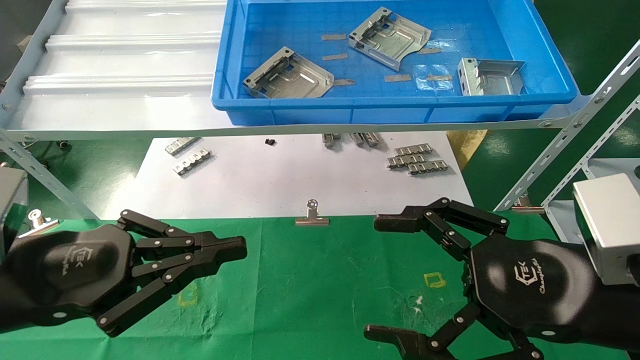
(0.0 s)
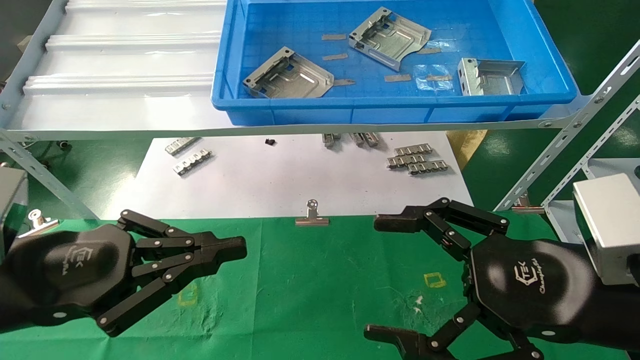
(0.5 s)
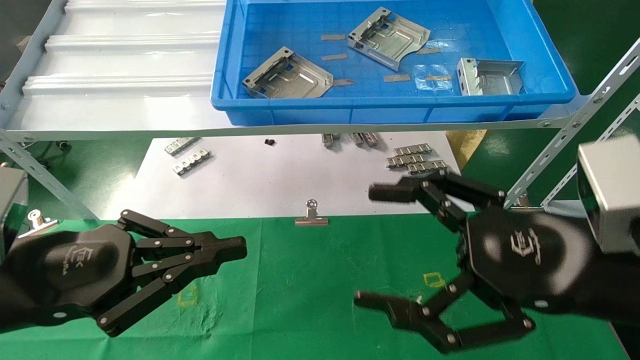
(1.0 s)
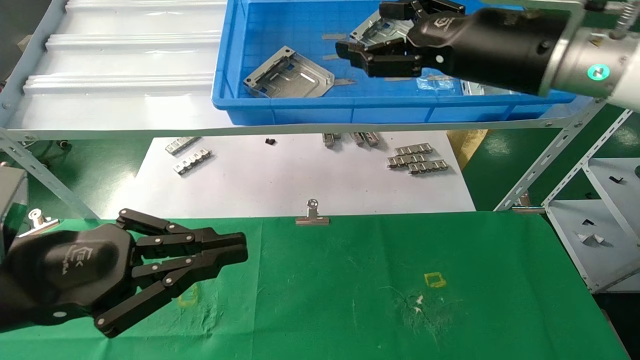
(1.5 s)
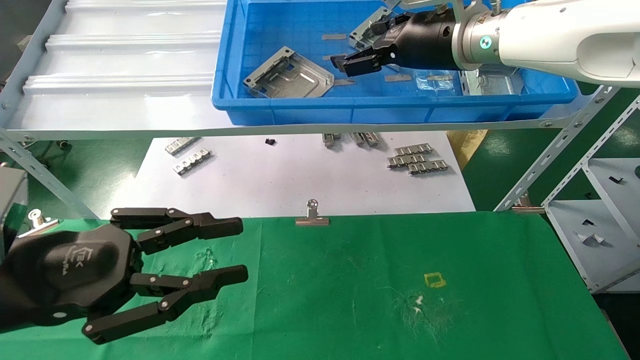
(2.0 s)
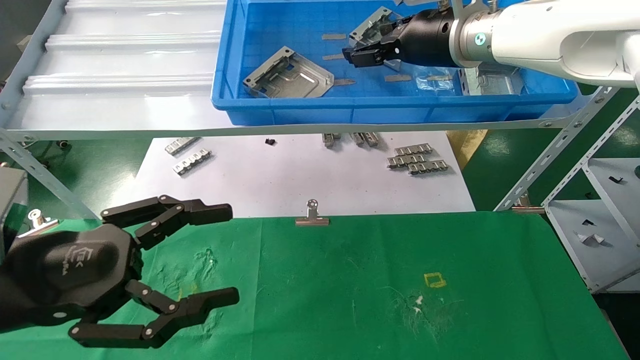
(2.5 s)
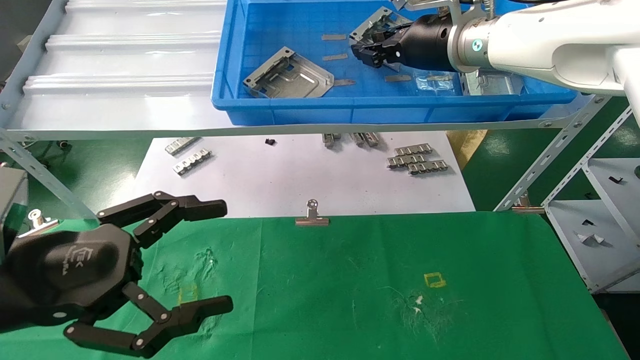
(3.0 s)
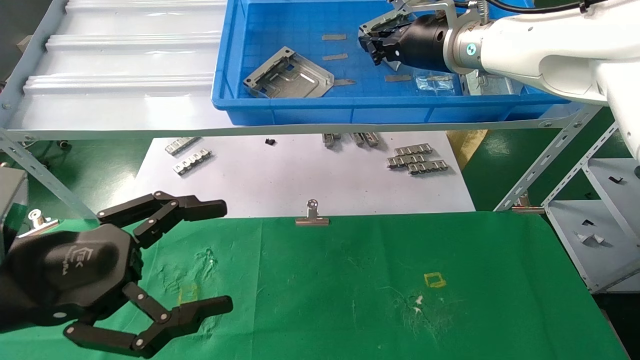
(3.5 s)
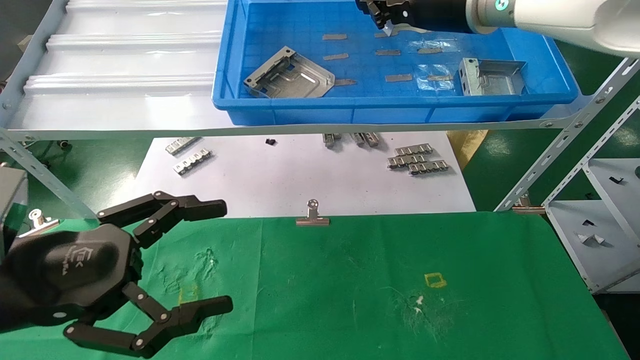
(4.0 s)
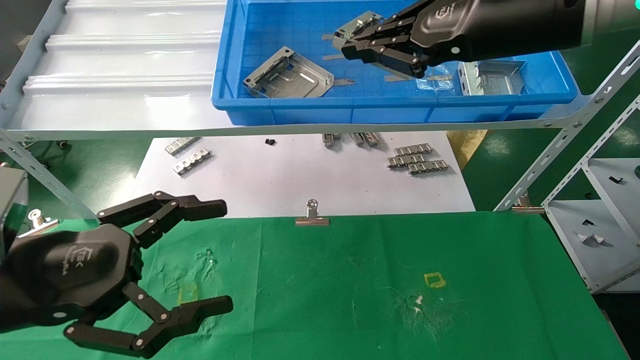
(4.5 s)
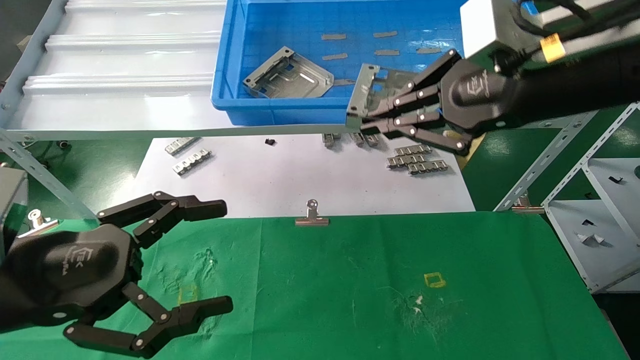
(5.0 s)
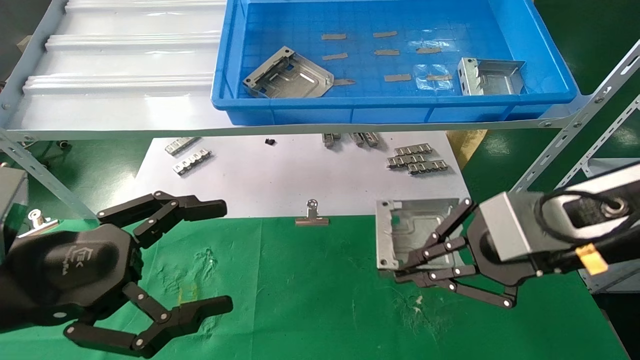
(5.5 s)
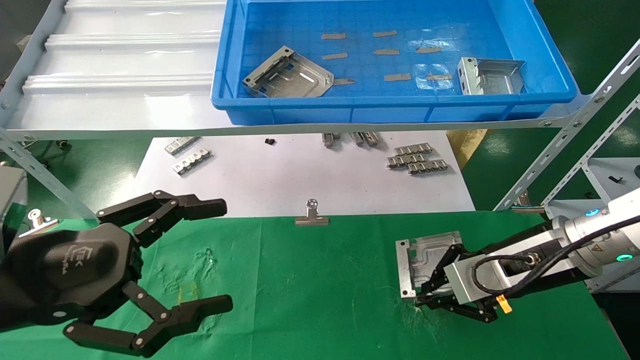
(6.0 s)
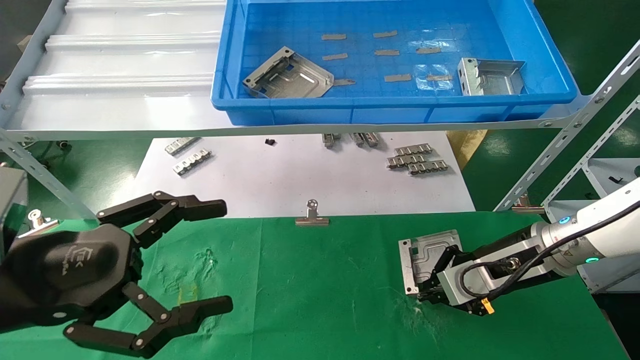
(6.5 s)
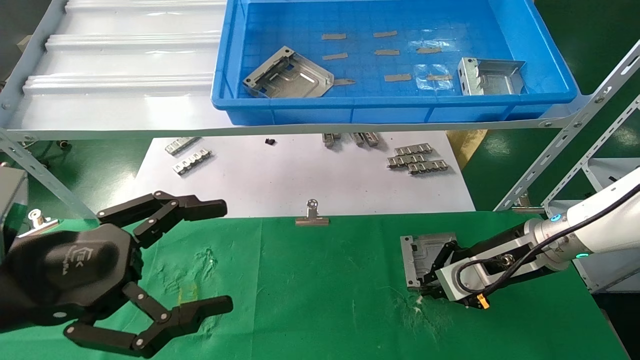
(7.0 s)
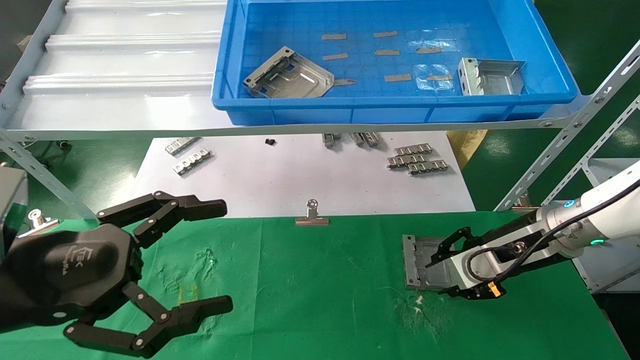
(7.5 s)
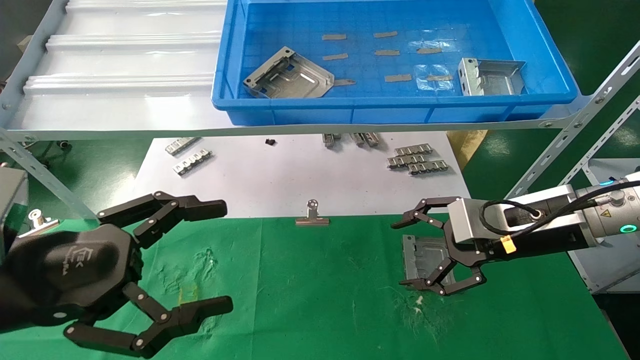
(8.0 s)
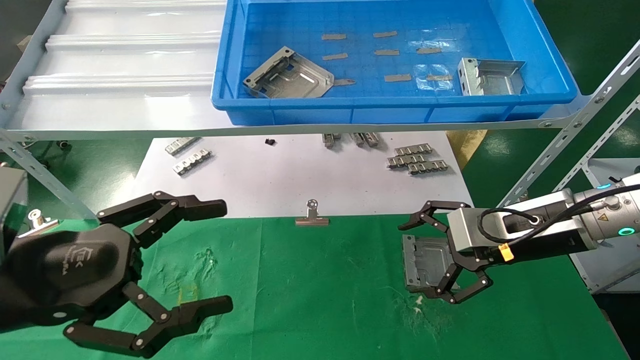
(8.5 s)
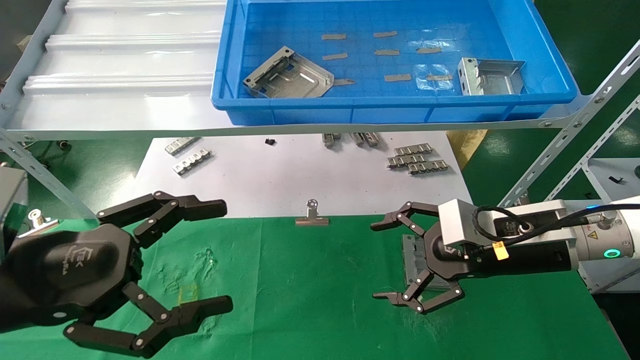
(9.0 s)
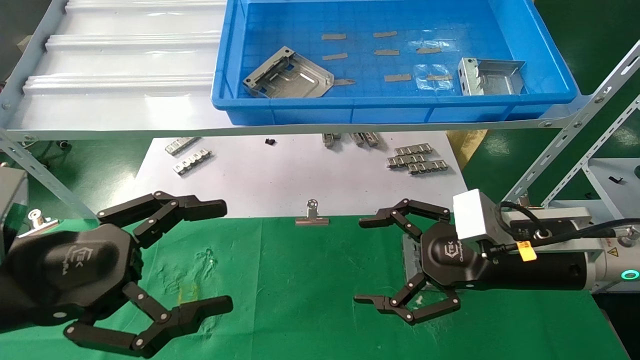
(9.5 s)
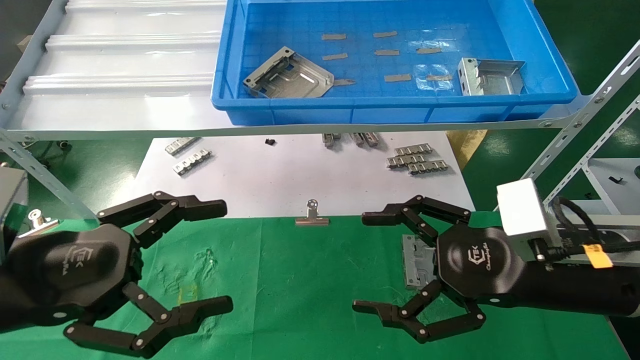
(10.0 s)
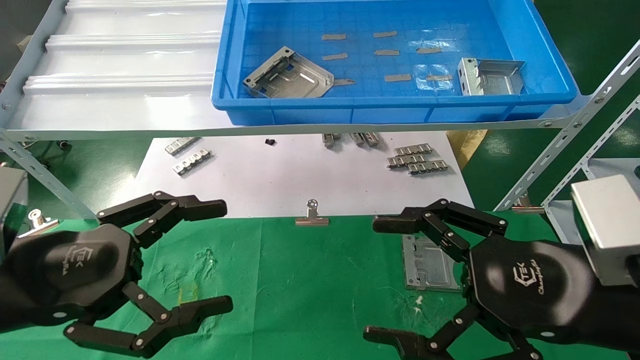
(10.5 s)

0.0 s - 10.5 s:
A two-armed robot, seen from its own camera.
Task of the whole recording: use the mechanical arm to pick up the parts and place them on the table.
Step, 1.5 s - 3.5 s: Pick up the hard drive bracket from the feeding area.
Step, 4.0 s - 7.0 s: Place the hard drive bracket into the box.
0.0 s - 2.0 s: The right gripper shifts roughly 30 cm forward and upward.
2.0 s - 4.0 s: The right gripper closes, while the left gripper opens up.
4.0 s - 6.5 s: The right gripper shifts about 30 cm downward.
6.5 s - 8.5 s: The right gripper ends up roughly 5 cm from where it was, and opens.
8.5 s - 10.5 s: The right gripper shifts about 15 cm backward.
